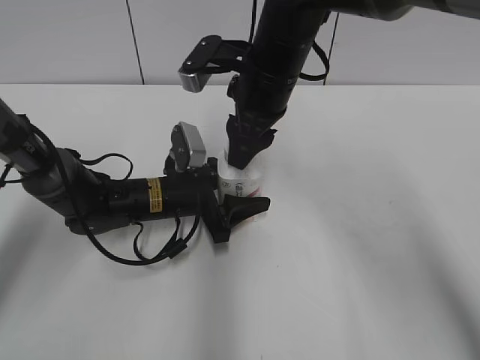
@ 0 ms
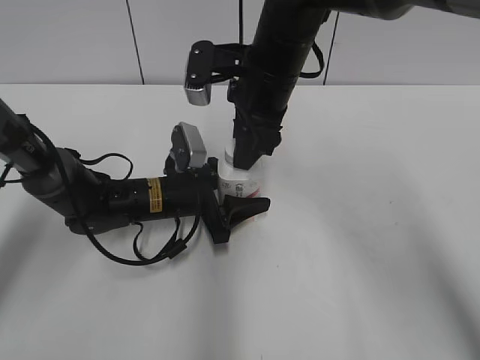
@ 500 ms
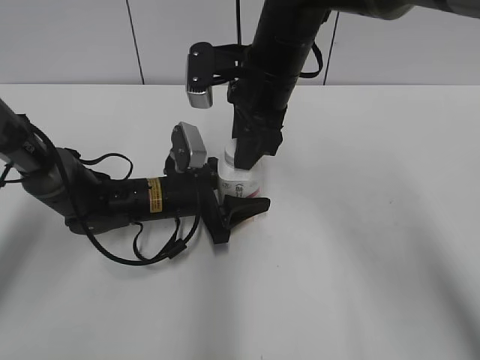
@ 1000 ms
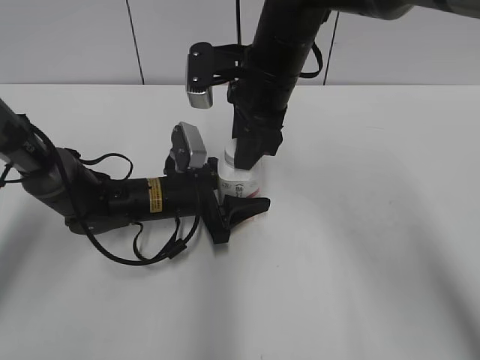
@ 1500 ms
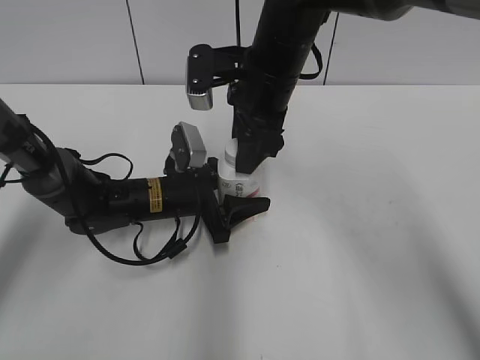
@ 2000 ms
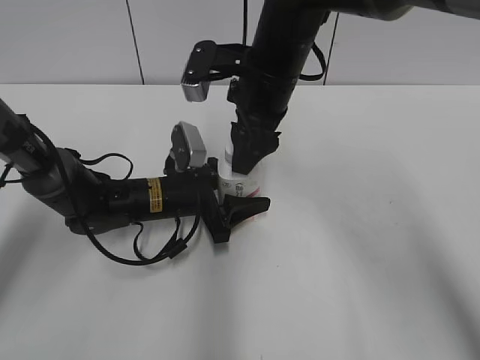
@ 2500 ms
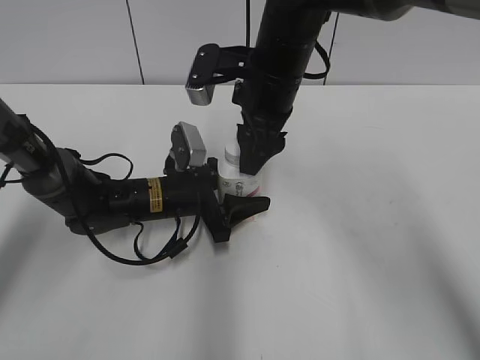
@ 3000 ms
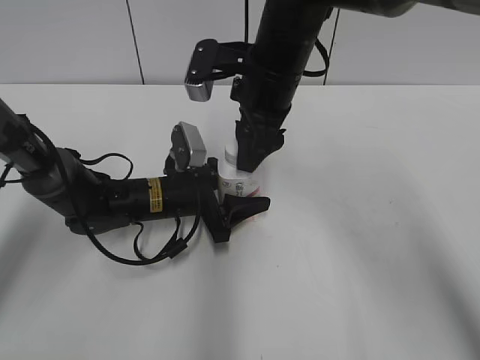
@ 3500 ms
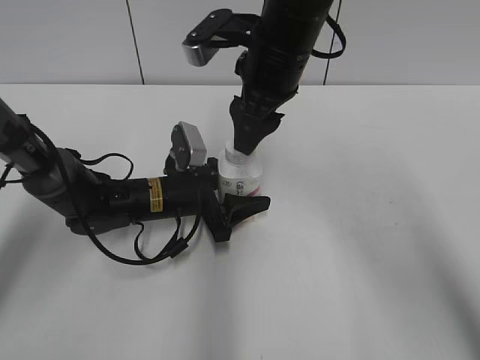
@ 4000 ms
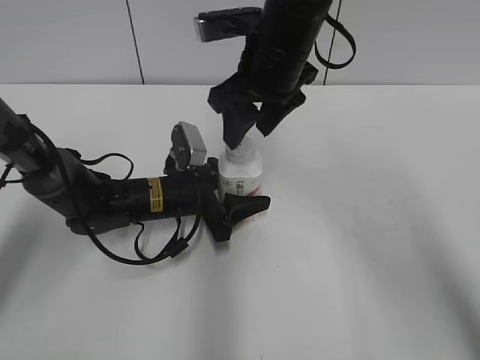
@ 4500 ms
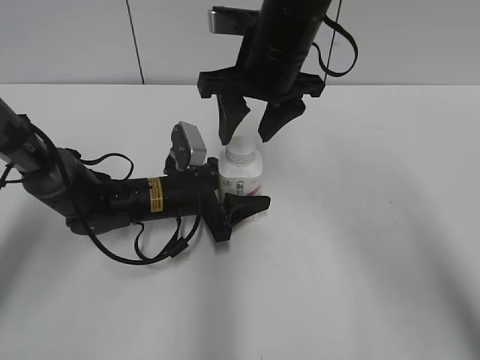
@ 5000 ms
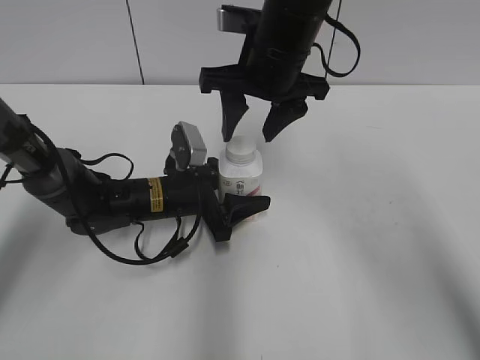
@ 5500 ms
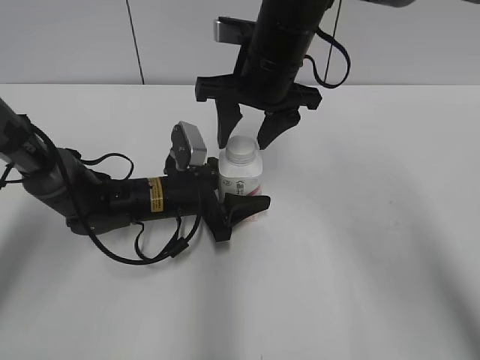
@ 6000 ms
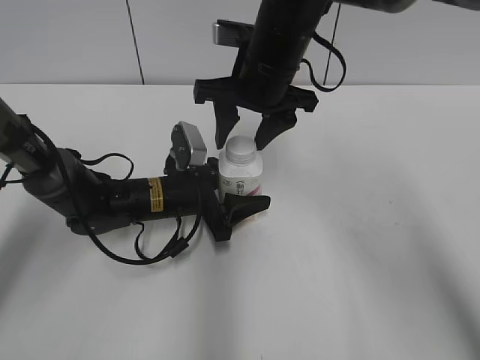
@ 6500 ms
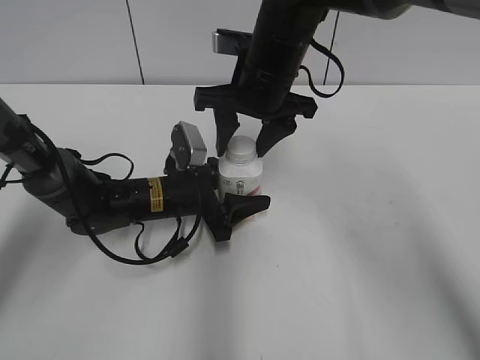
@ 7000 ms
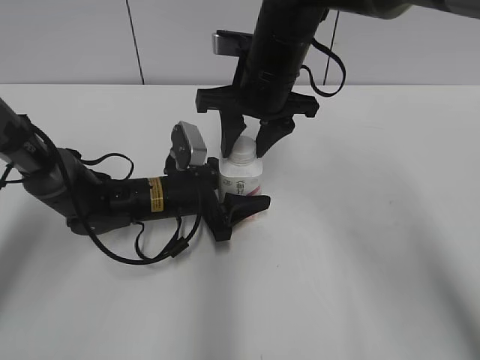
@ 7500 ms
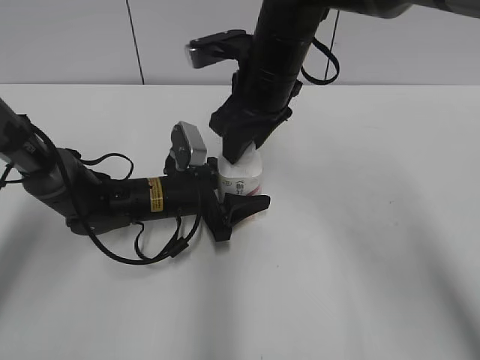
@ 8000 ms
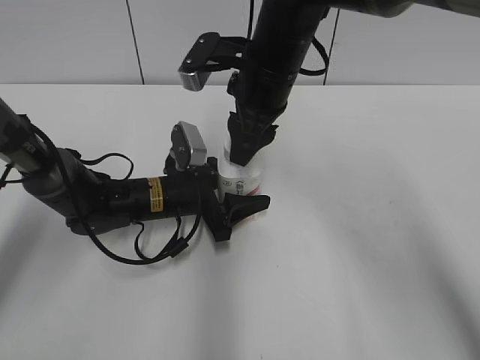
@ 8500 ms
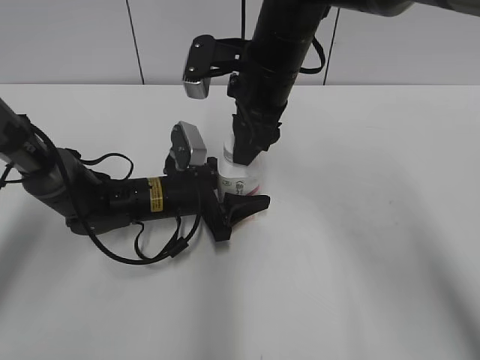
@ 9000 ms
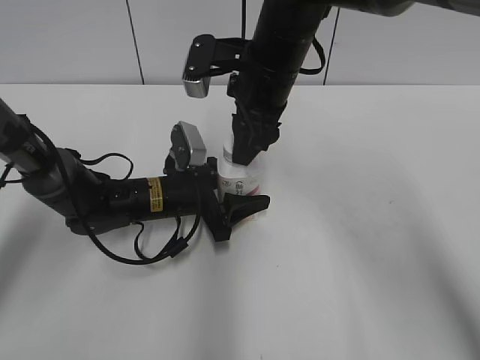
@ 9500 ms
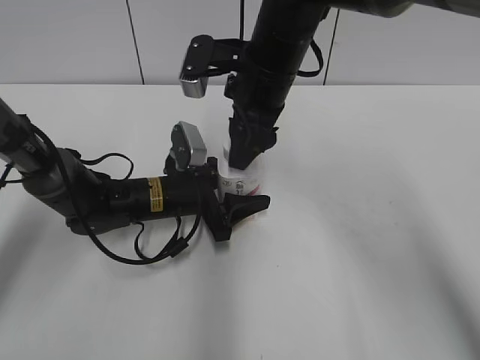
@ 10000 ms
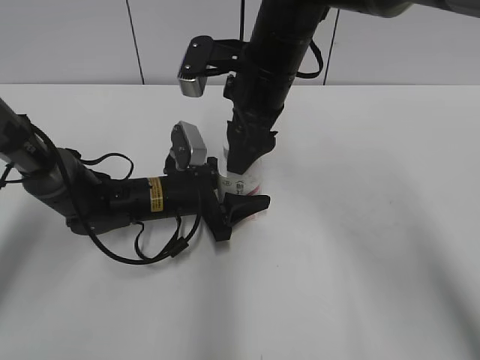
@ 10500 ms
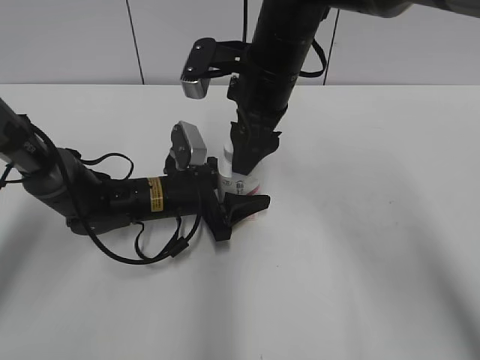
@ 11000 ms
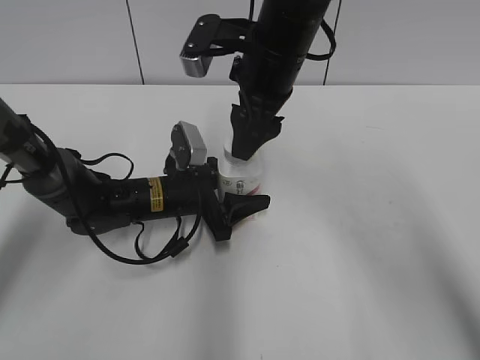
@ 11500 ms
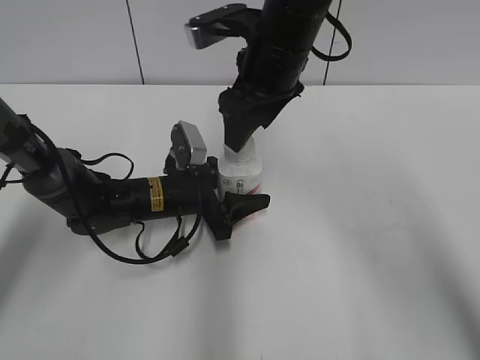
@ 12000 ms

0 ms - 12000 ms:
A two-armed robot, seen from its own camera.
0 ms - 2000 ms: The right gripper opens.
6000 ms - 8000 ms: The right gripper closes up.
8000 ms - 10000 ms: The right gripper opens.
10000 ms - 12000 ms: The right gripper opens its fingers.

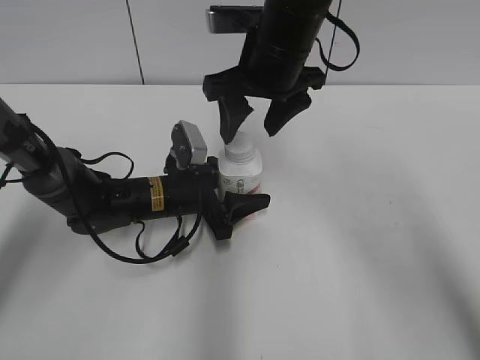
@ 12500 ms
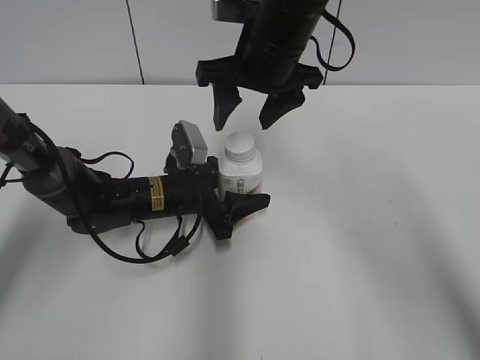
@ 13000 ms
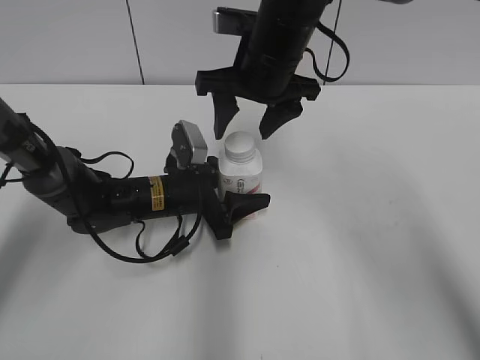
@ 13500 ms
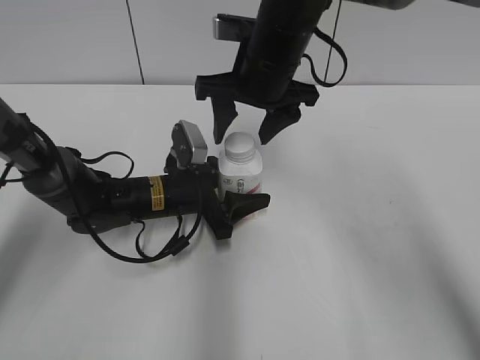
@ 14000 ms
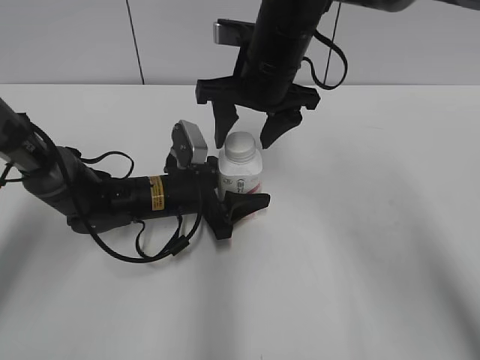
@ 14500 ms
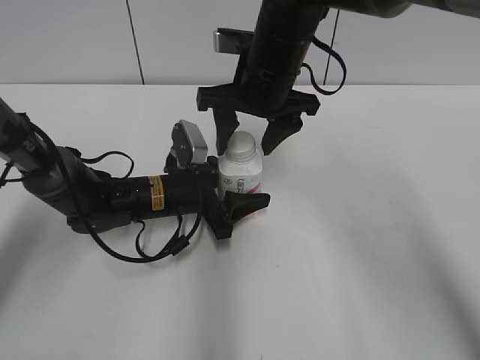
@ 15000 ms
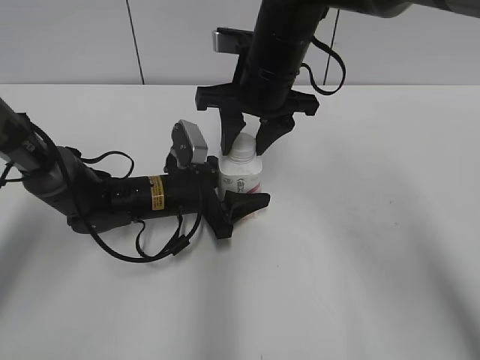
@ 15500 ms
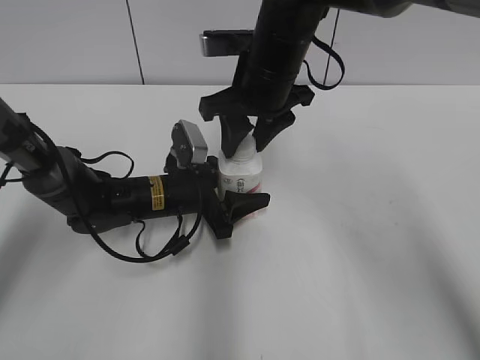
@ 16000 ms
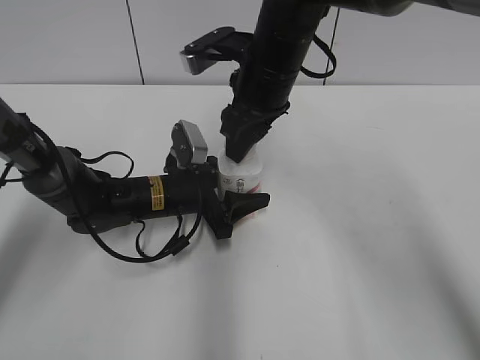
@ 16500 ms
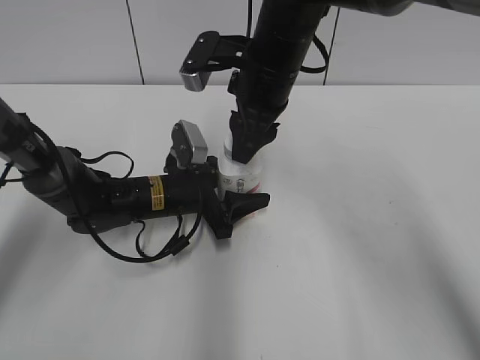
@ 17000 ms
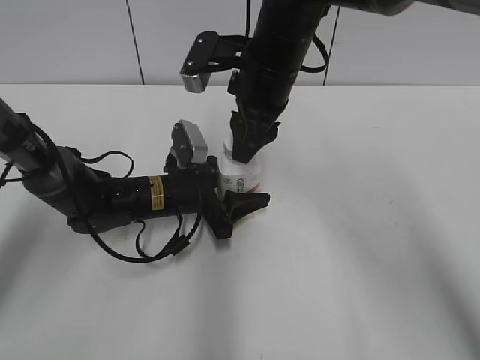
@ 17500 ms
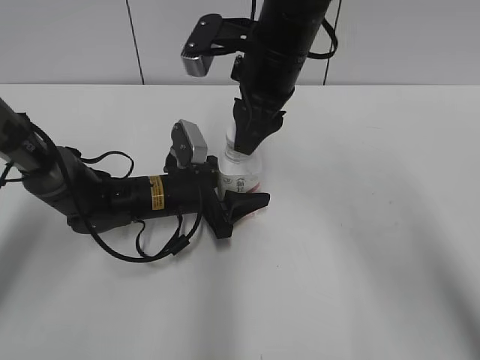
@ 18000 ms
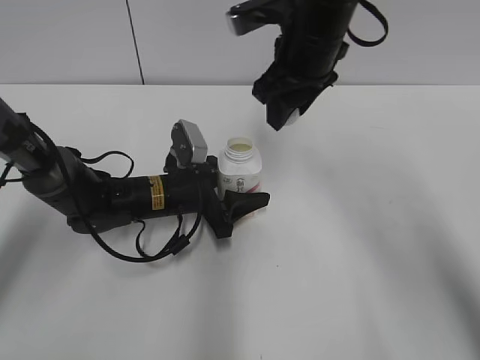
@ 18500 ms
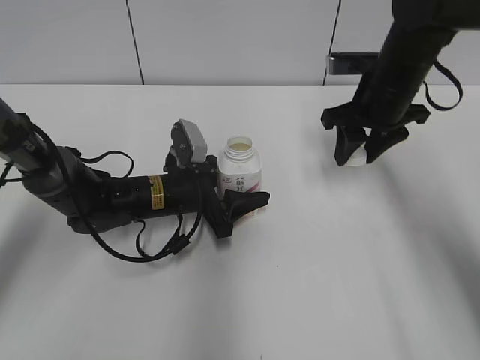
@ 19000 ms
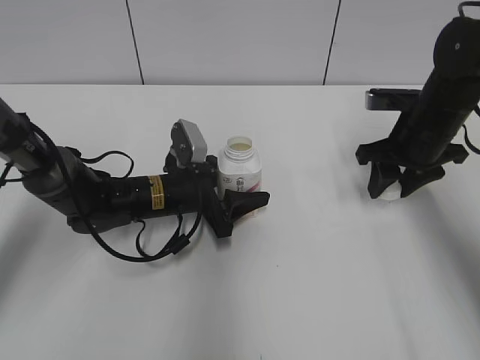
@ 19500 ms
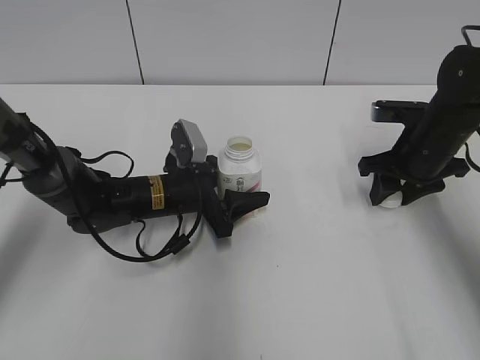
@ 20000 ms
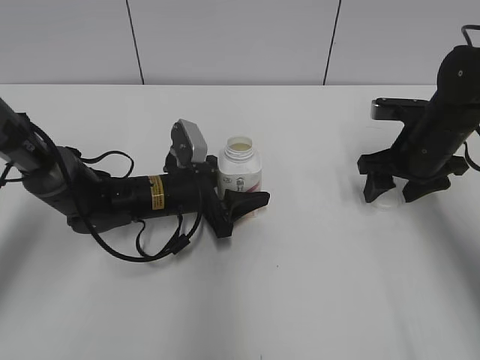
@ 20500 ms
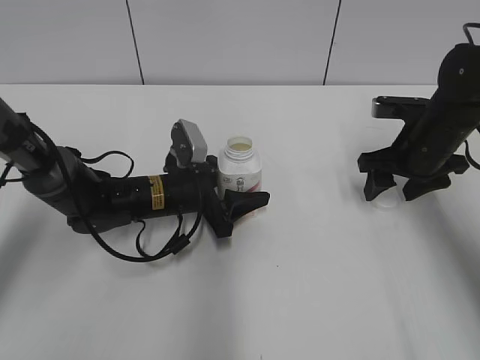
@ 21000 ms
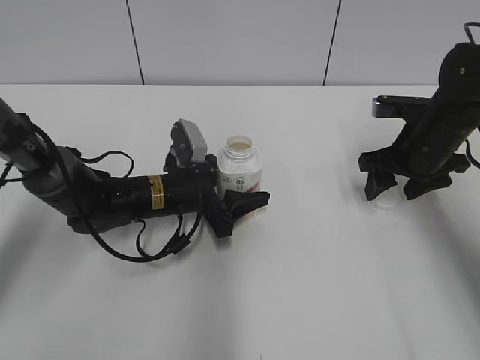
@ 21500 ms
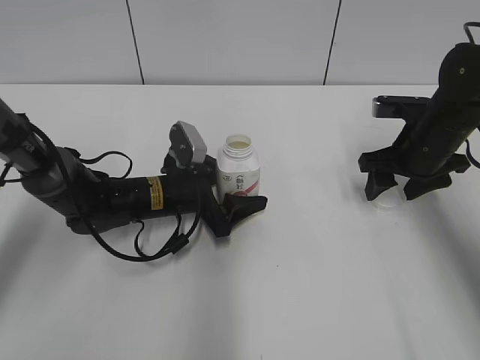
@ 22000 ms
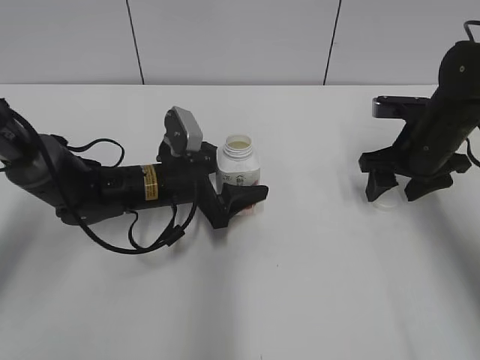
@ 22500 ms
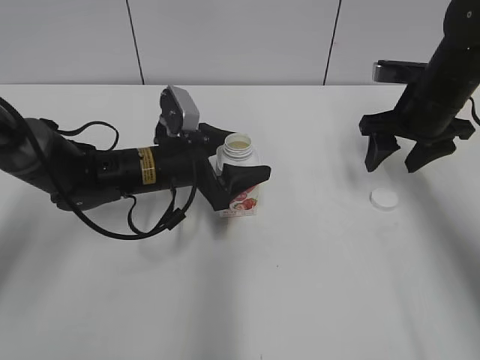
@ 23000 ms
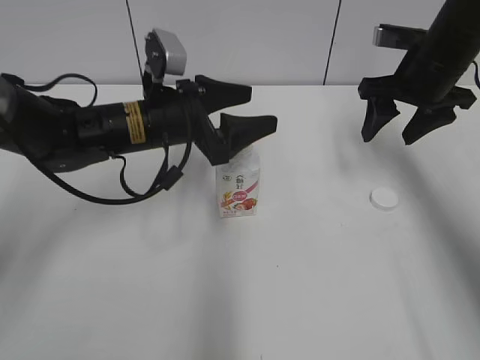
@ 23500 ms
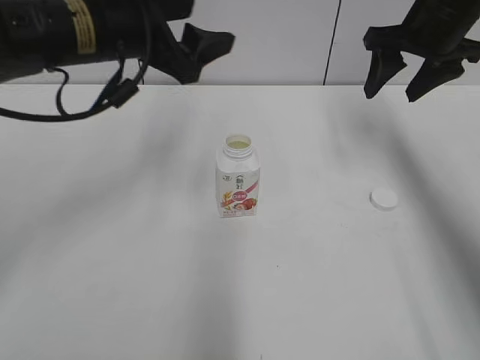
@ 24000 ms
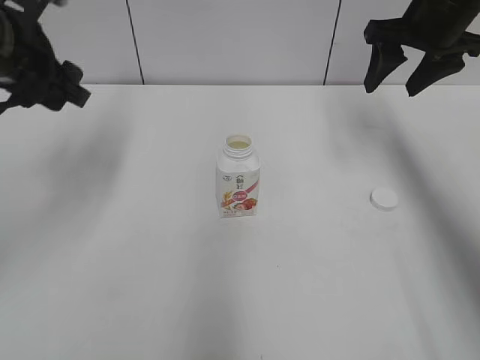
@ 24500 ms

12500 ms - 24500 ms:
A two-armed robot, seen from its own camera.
Step, 18500 ms - 20000 ms: Place the bottle cap on the right.
Step, 20500 ms - 22000 ms: Place the Yili Changqing with the left hand.
12500 ms - 14500 ms: The grippers move only a little.
14500 ms - 16500 ms: The right gripper closes.
16500 ms - 18500 ms: The right gripper moves about 5 cm.
18500 ms - 20500 ms: The right gripper heads to the right and downward, covering some 20 cm, and opens its fingers.
20500 ms - 22500 ms: The left gripper opens up.
22500 ms - 24500 ms: The left gripper heads upward and to the left, covering roughly 25 cm, while the right gripper goes roughly 15 cm upward.

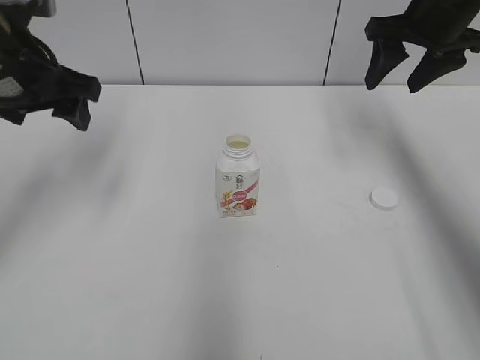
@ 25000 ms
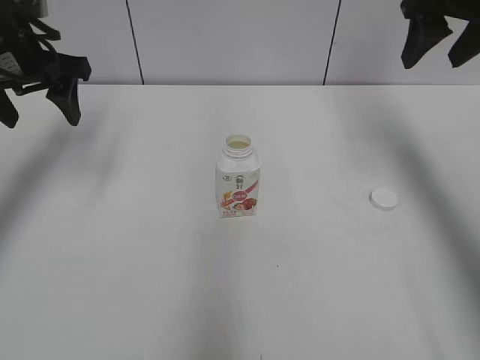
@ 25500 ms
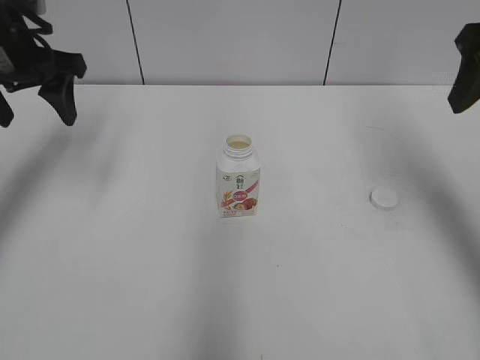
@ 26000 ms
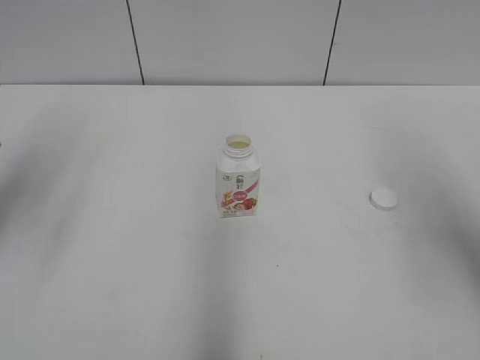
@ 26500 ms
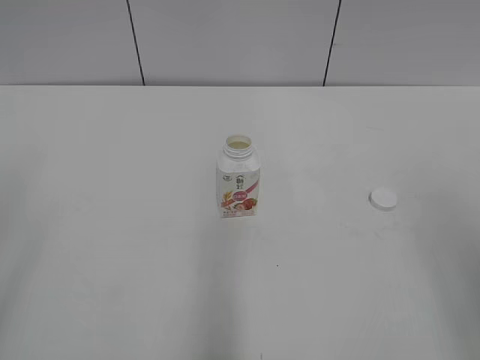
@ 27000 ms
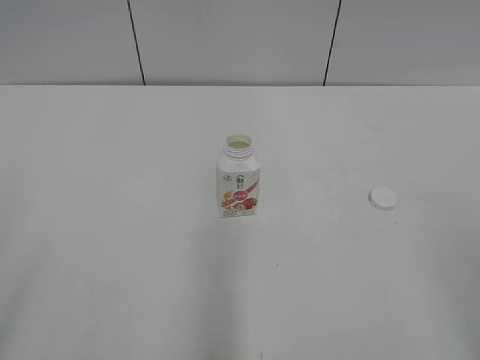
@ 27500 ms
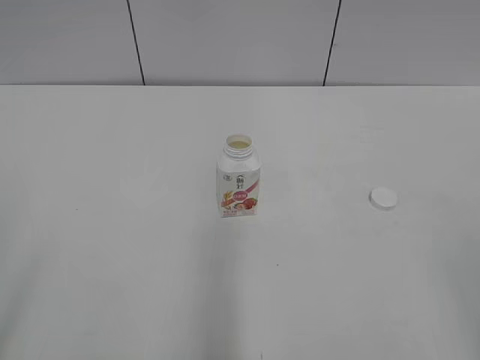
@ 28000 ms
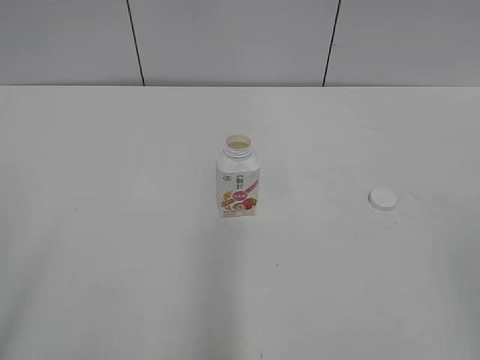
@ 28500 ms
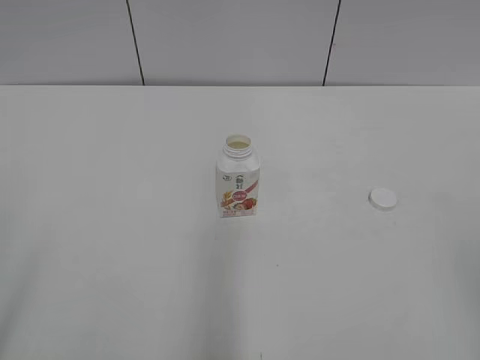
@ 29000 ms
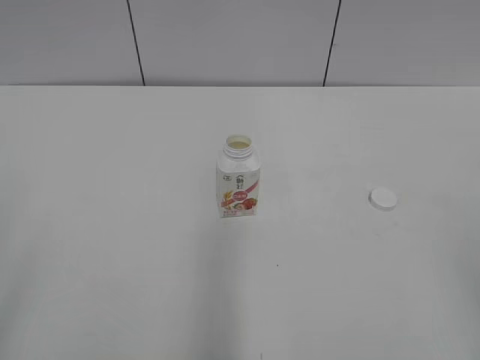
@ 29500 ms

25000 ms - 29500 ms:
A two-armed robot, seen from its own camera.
25000 ms - 27000 ms: Both grippers move backward, some 30 cm.
